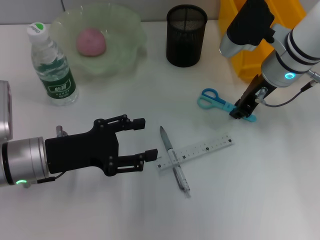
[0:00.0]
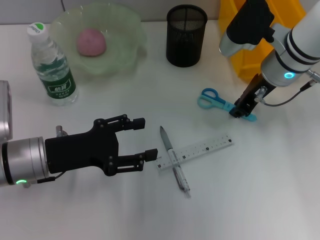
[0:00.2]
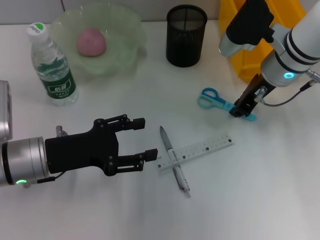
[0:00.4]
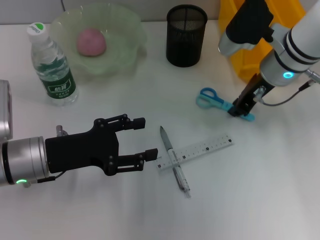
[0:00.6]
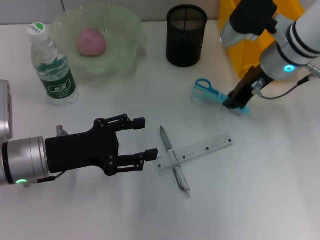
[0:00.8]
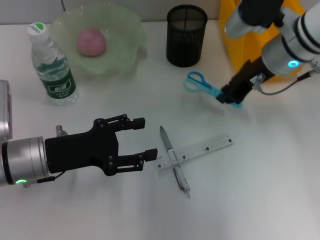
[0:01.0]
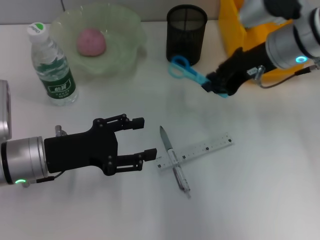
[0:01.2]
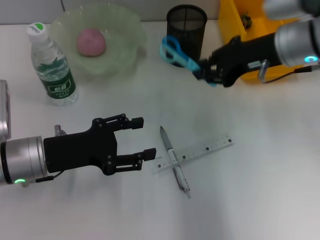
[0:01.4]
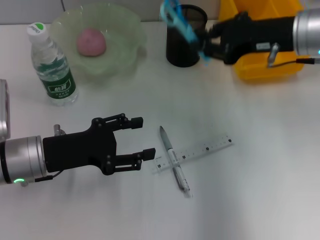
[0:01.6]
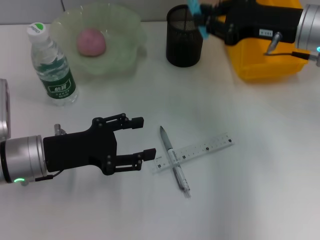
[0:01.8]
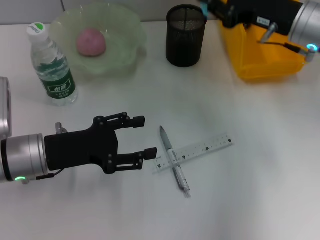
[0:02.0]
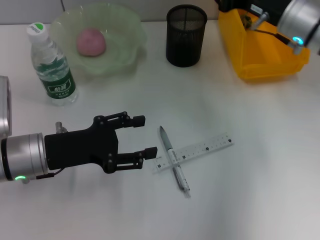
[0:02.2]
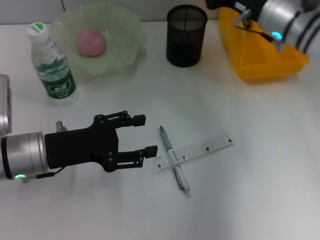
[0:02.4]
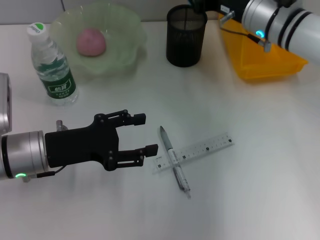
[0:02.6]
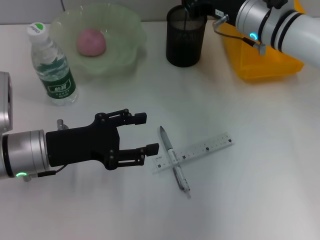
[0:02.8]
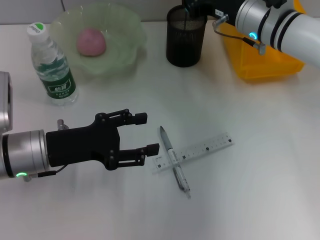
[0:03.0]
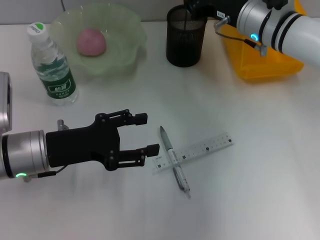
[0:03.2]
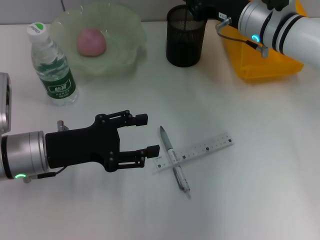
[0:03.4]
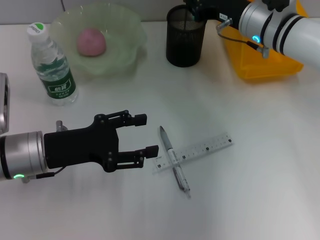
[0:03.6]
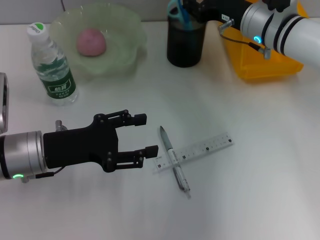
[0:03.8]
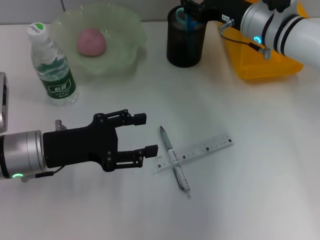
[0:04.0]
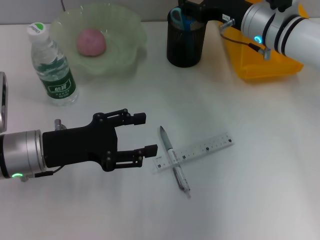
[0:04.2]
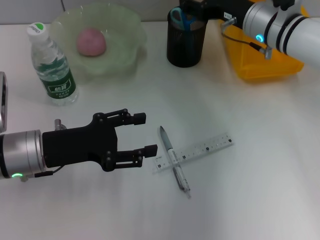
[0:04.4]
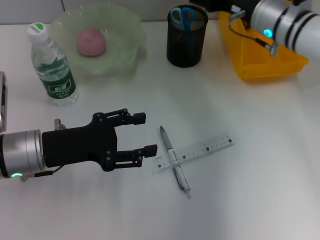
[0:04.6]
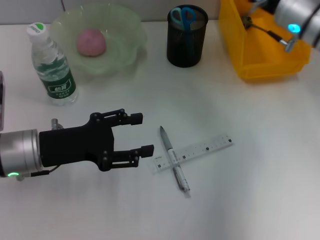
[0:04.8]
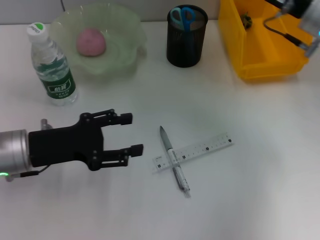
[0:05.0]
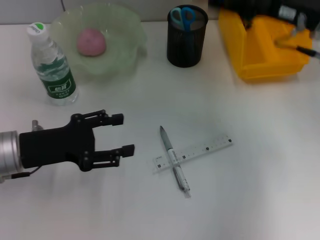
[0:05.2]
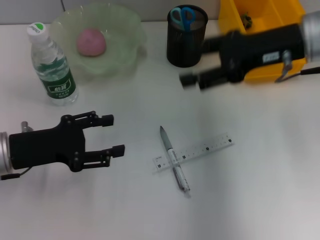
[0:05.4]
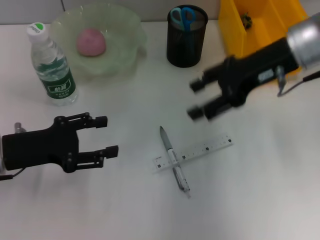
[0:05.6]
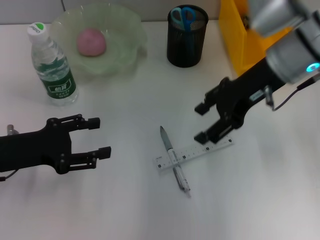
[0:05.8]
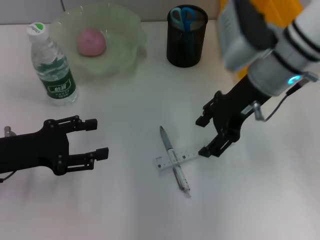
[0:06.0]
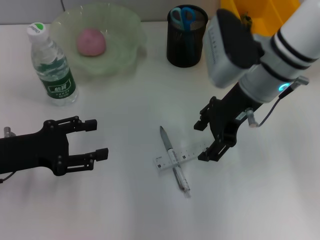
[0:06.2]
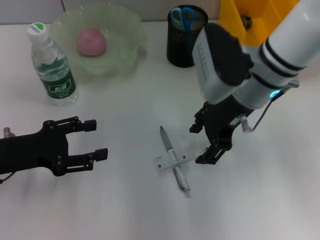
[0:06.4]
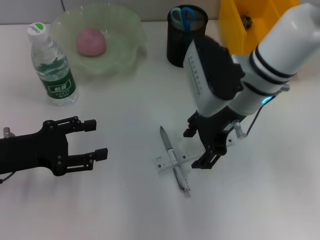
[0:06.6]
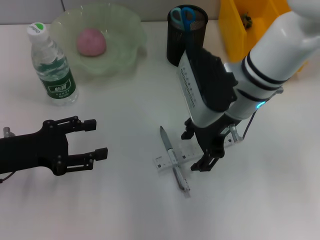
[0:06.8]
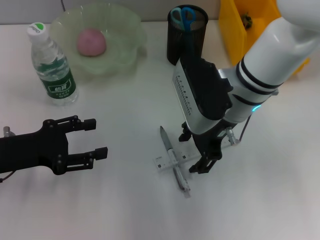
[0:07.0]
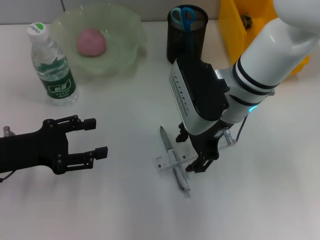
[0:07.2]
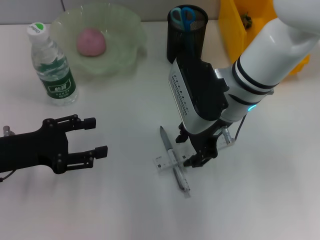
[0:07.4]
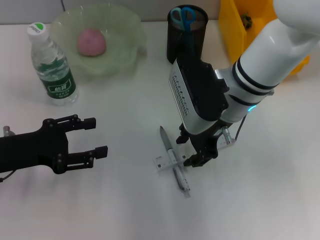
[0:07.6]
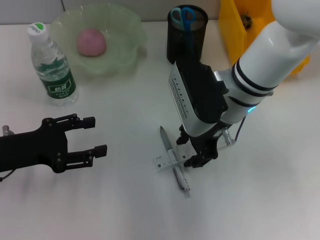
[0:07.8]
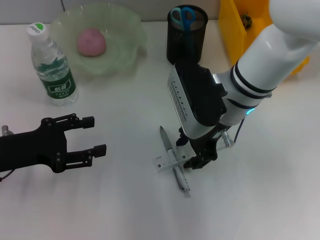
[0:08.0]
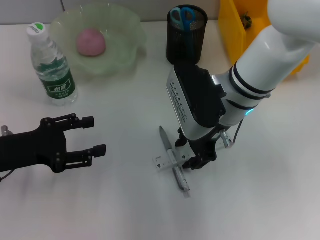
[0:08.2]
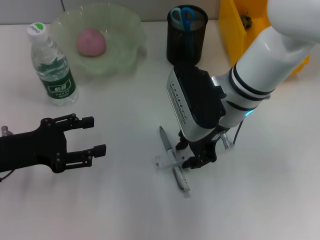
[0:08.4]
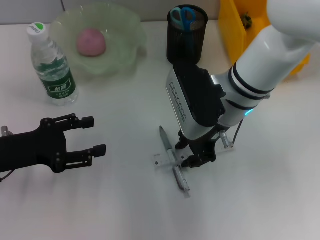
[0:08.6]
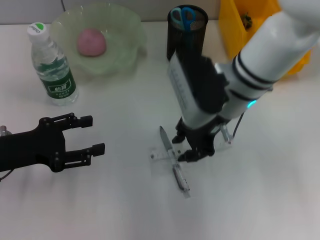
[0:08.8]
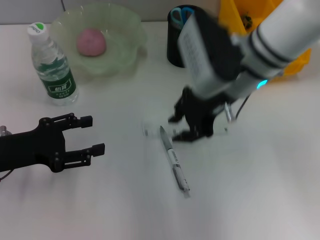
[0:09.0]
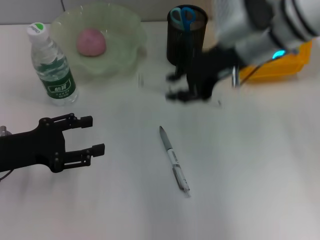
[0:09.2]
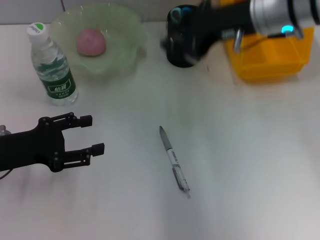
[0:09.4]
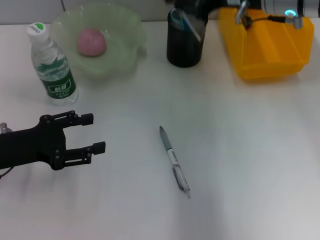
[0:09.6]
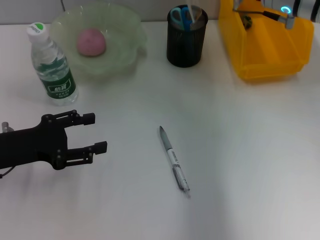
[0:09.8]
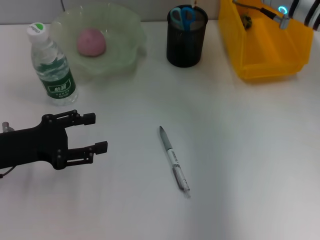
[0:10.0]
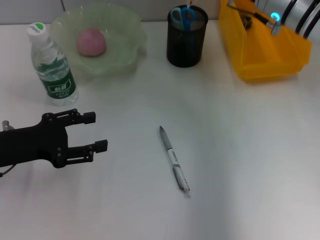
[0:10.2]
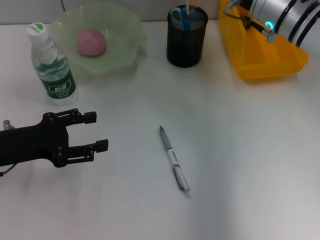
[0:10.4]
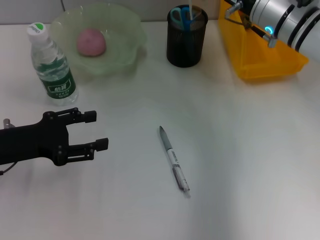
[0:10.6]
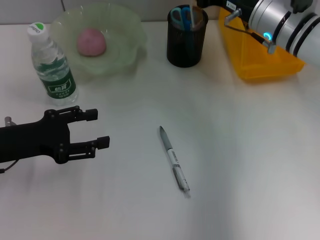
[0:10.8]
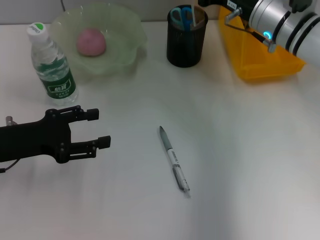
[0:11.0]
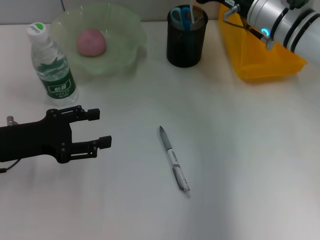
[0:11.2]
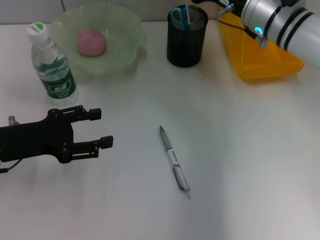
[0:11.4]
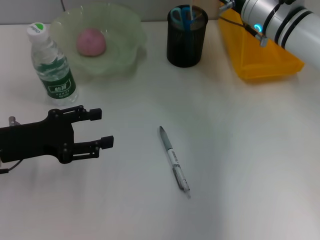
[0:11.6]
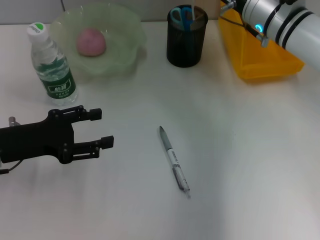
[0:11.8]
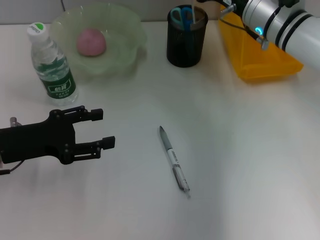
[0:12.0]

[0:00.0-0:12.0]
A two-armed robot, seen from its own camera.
Step, 0:00.6 to 0:03.8: Place the blue scissors into the pen holder with the right hand.
Step, 0:04.0 to 0:08.6: Grab the ruler with the right hand.
0:00.0 to 0:01.6: The right gripper shifts roughly 5 cm upward.
0:01.6 to 0:03.0: The right gripper travels forward, downward and to the left by some 10 cm.
0:03.0 to 0:04.4: The right gripper opens.
0:04.4 to 0:06.0: The right gripper moves backward and upward, approximately 10 cm, and goes to the right and returns, approximately 5 cm each way, while the left gripper travels to the left by roughly 5 cm.
0:06.0 to 0:07.6: The right gripper moves roughly 5 cm.
0:07.6 to 0:09.0: The right gripper shifts by roughly 5 cm.
0:09.0 to 0:10.4: The right gripper heads to the right and forward, covering approximately 10 cm.
0:10.4 to 0:12.0: The grippers move only a little.

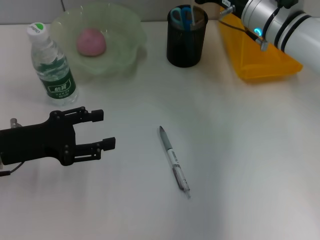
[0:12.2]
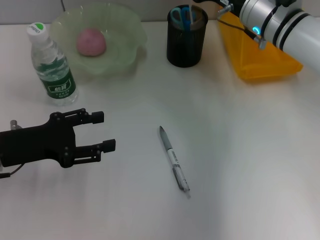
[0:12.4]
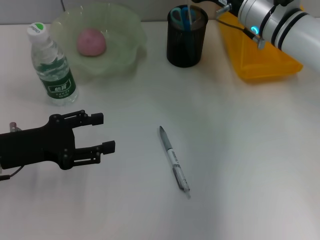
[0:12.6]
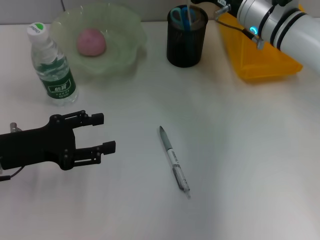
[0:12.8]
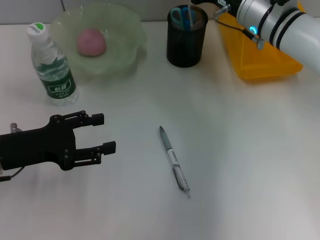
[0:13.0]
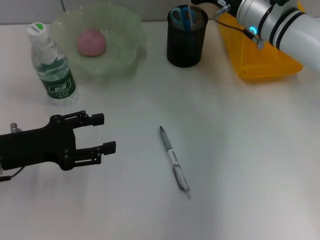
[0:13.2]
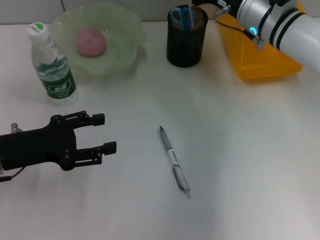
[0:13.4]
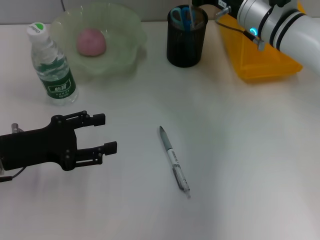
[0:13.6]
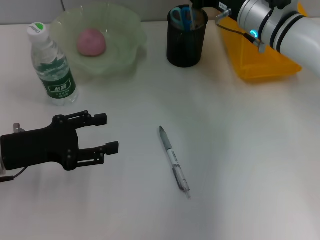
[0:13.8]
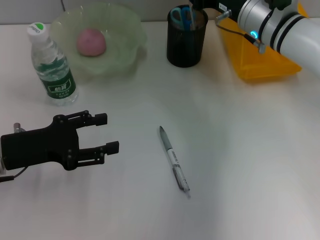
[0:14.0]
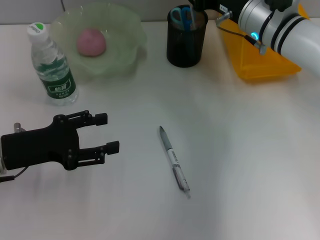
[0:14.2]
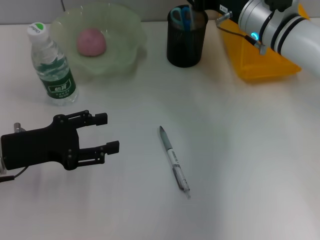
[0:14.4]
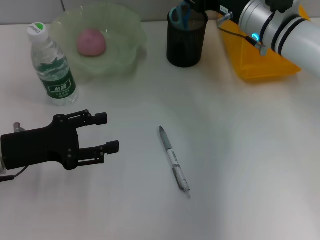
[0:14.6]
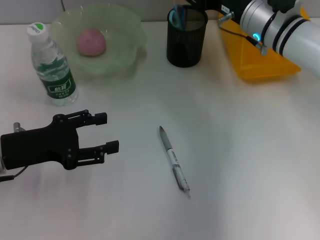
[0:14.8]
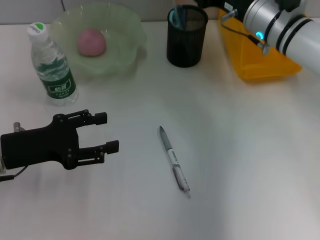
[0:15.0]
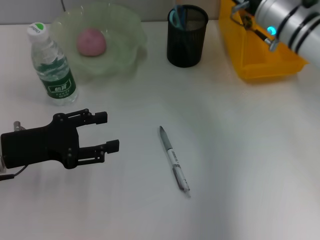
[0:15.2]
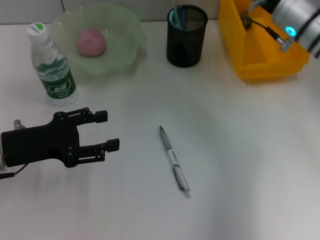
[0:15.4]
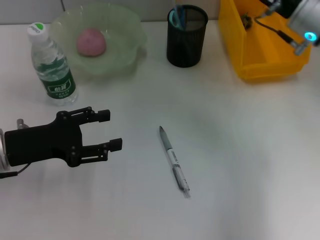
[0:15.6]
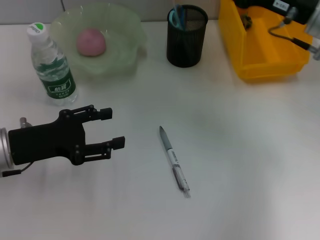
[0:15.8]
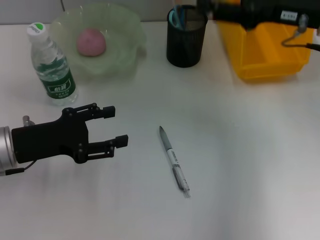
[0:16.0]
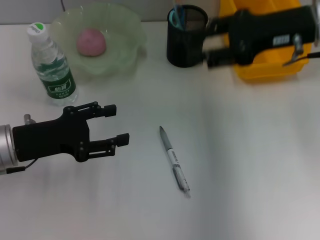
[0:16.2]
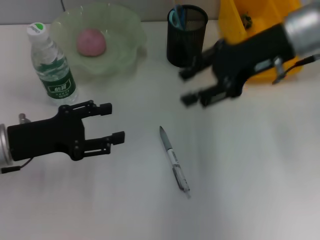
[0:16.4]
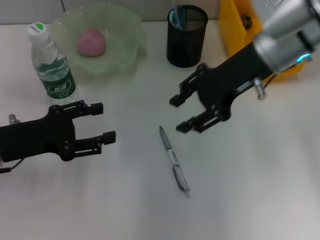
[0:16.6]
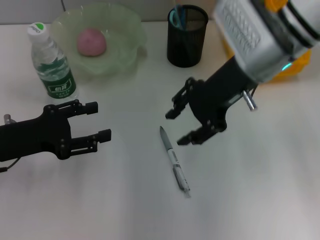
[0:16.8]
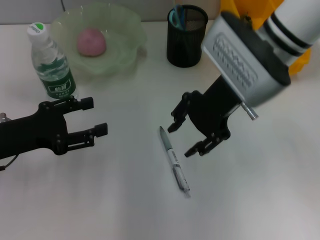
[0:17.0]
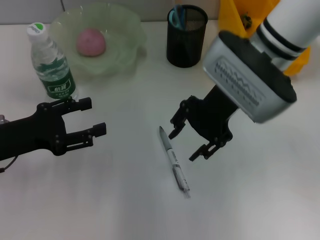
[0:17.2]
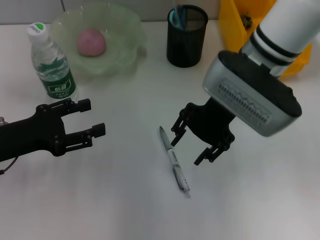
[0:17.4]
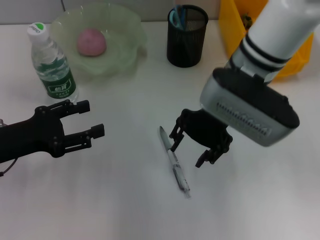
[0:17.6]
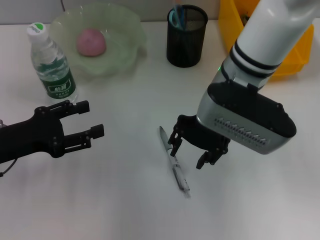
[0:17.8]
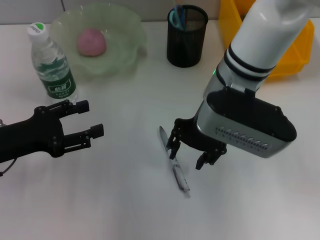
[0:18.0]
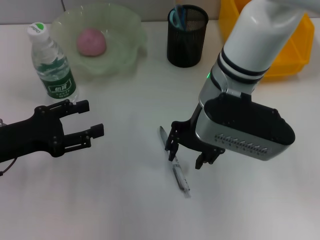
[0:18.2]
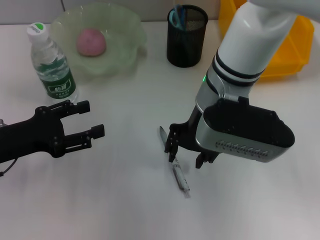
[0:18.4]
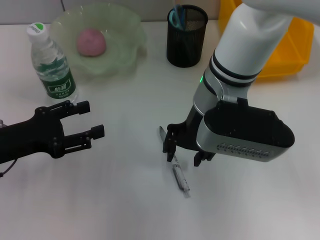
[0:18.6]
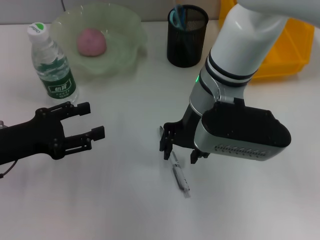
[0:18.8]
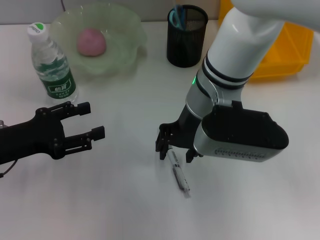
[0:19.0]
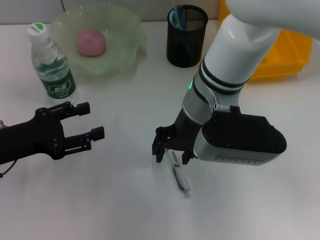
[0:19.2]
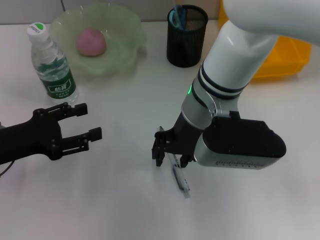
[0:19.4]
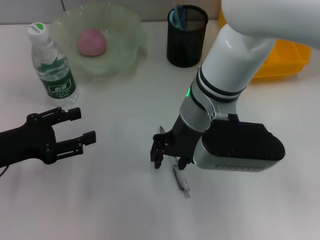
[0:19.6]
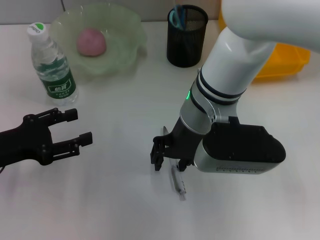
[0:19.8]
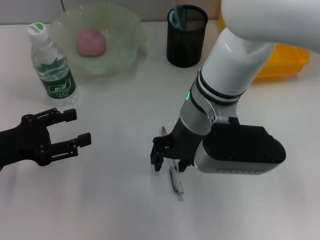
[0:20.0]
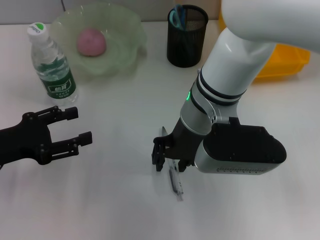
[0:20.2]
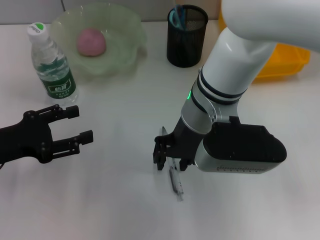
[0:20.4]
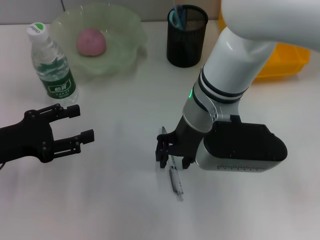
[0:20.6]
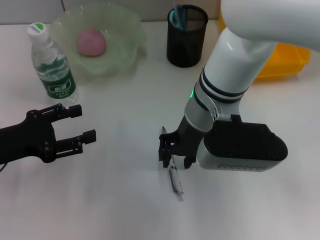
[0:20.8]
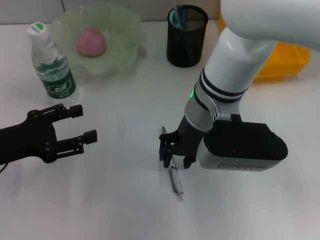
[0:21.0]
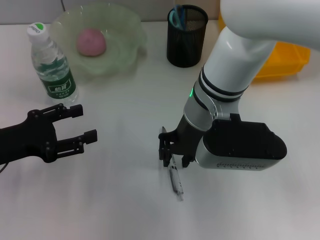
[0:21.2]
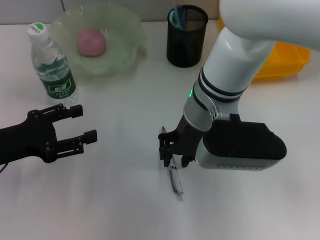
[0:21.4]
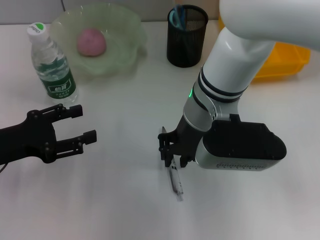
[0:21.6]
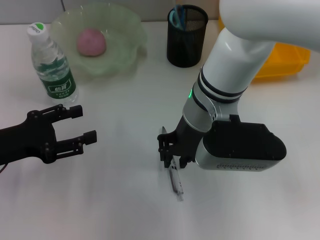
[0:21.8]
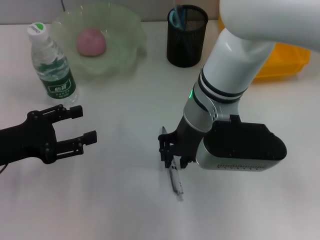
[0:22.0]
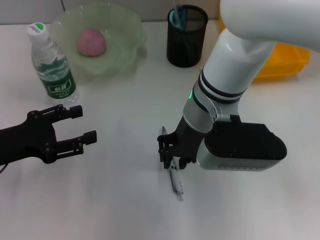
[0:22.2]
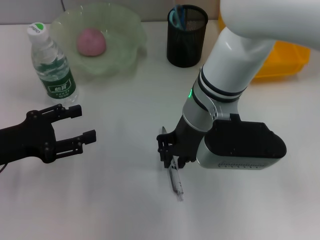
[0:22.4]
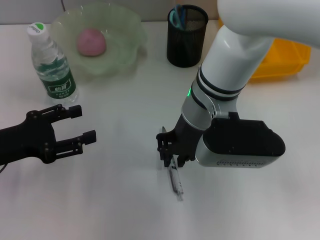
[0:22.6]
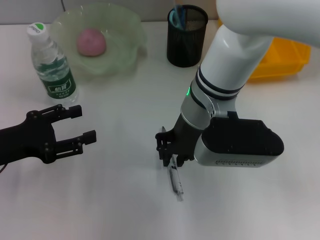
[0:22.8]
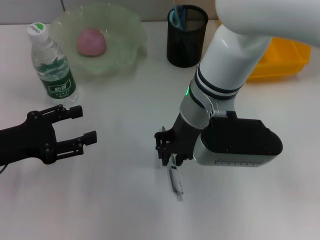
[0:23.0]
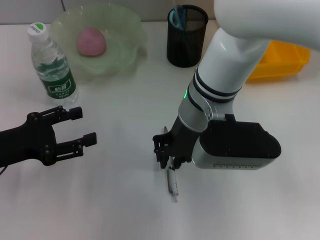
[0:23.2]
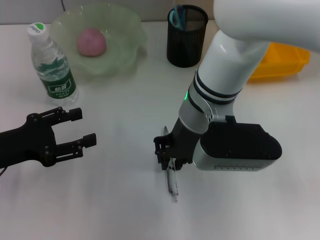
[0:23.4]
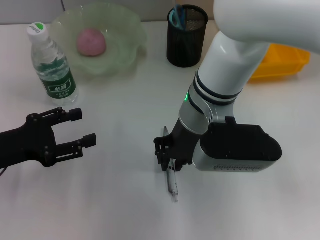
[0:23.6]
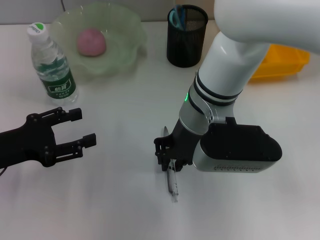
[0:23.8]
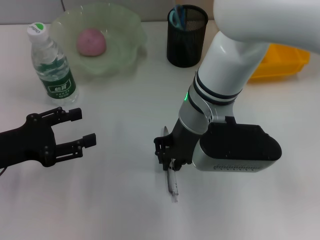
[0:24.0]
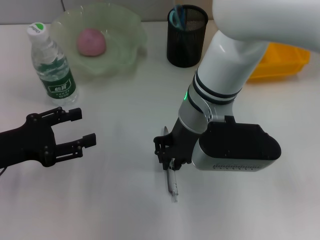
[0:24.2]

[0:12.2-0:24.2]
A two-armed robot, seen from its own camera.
Step, 0:12.2 to 0:14.8: Place the ruler into the pen holder with the right hand.
0:12.2 to 0:13.8: Both grippers stay about where they are.
0:13.8 to 0:15.2: There are only small adjustments of the grippers.
0:15.2 to 0:16.6: The right gripper shifts about 5 cm upward.
0:16.6 to 0:18.2: The right gripper goes roughly 10 cm to the left.
0:18.2 to 0:19.8: There are only small adjustments of the grippers.
0:19.8 to 0:24.2: Both grippers stay put.
